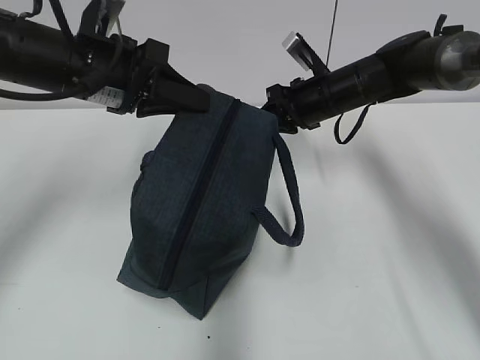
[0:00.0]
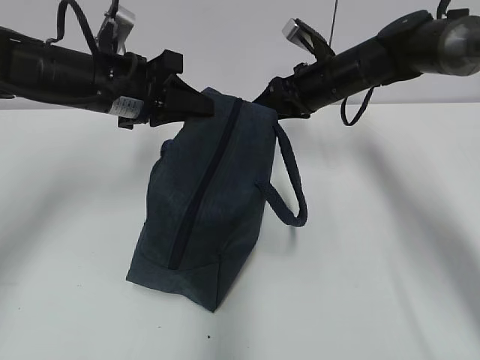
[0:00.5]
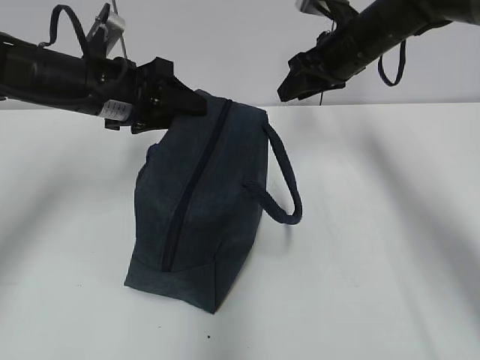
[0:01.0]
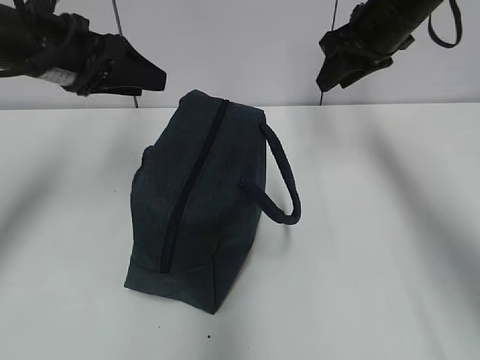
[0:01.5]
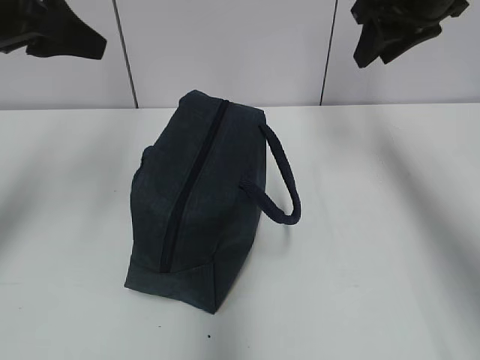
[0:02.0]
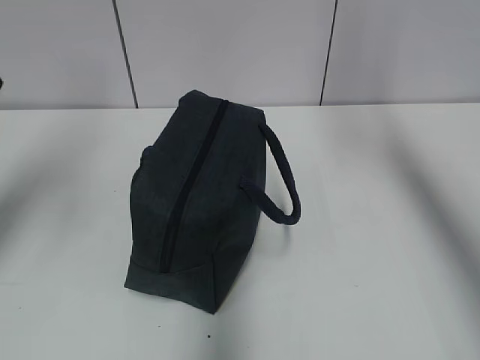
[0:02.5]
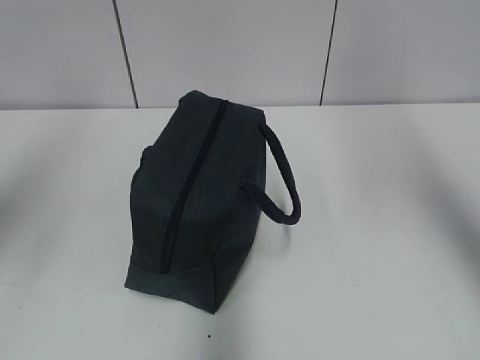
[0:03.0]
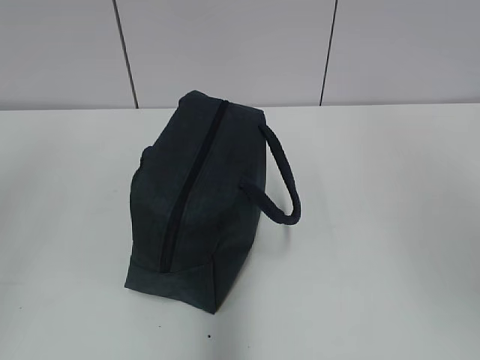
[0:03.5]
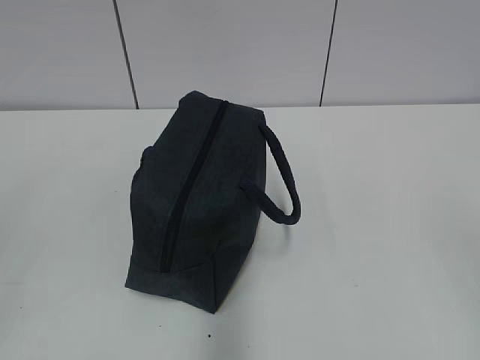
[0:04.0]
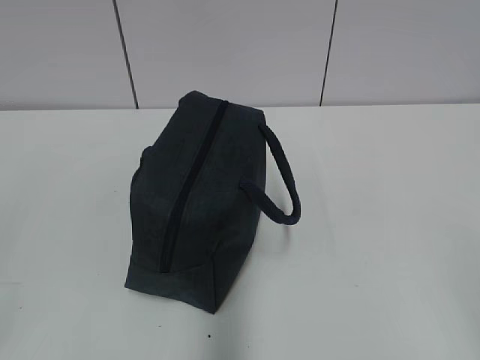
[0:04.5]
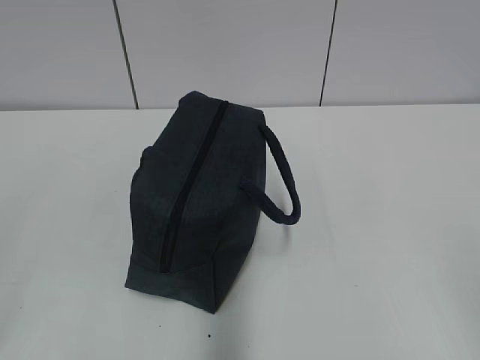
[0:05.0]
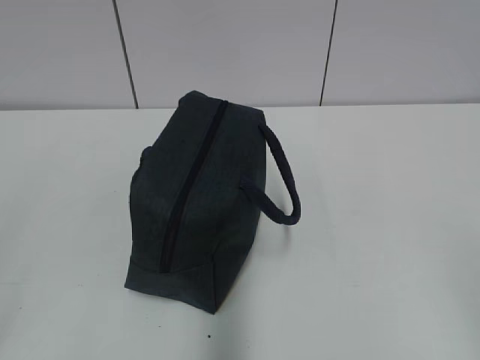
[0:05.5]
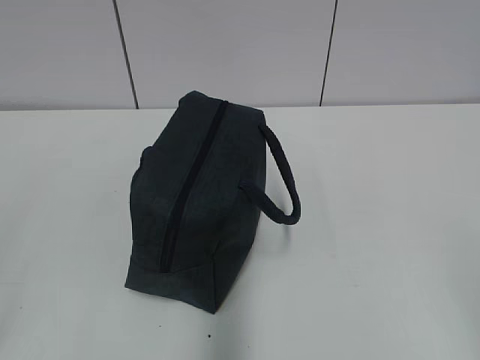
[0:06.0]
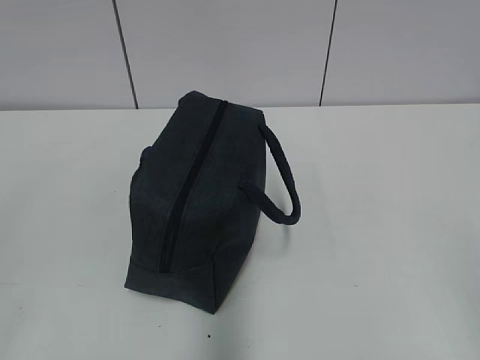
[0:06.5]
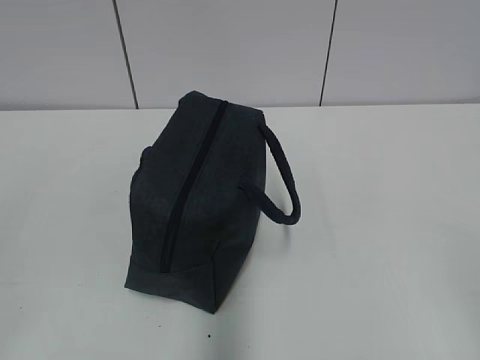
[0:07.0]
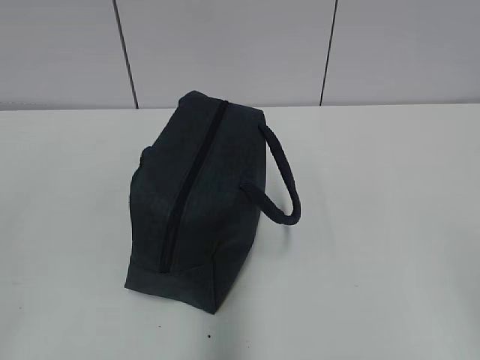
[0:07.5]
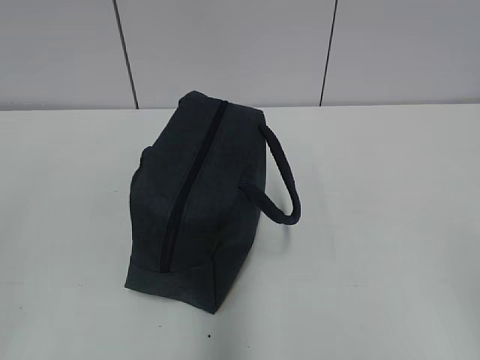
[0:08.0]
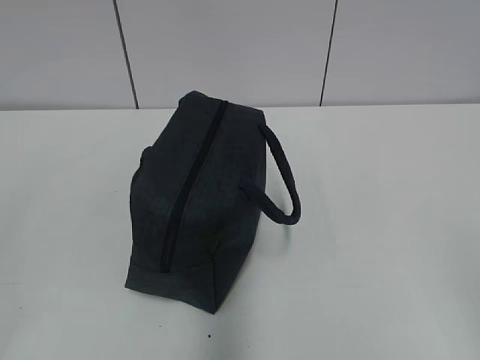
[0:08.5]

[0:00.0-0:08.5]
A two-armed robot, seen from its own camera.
Step, 0:00.0 to 0:00.5: Grab the lunch bag with your left hand.
0:00.0 to 0:02.0: The left gripper travels upward and to the left by roughly 10 cm, and opens. Meanwhile the right gripper moves upward, about 15 cm, and opens its fingers.
0:02.0 to 0:04.0: The grippers both shift backward by about 40 cm.
0:06.5 to 0:08.5: Both grippers stay put.

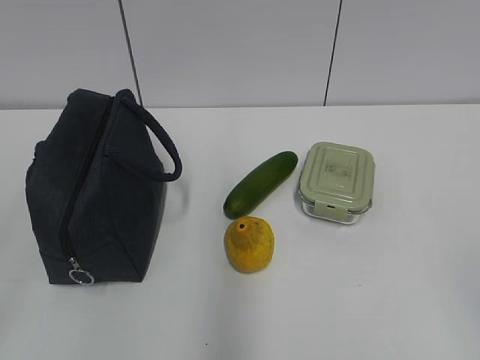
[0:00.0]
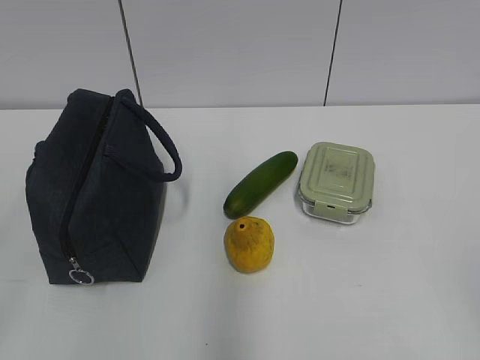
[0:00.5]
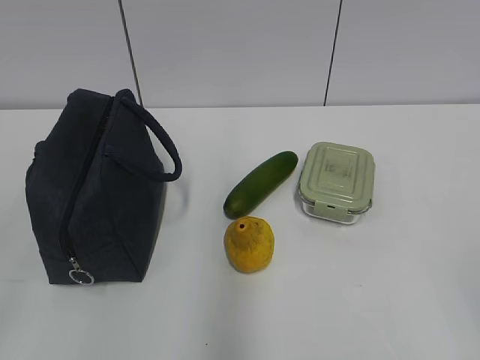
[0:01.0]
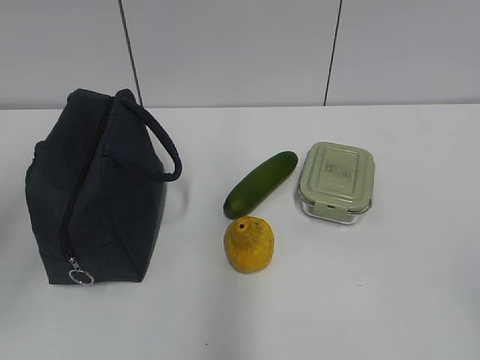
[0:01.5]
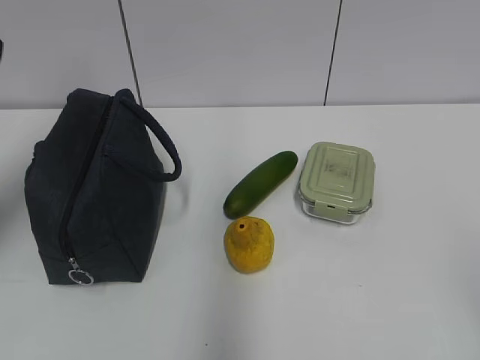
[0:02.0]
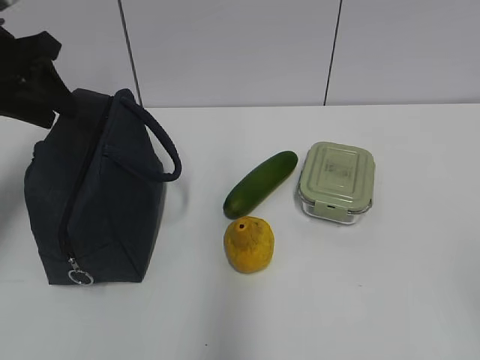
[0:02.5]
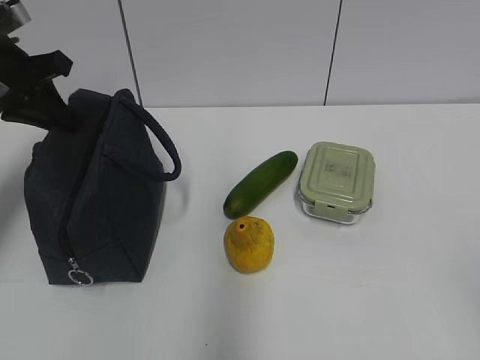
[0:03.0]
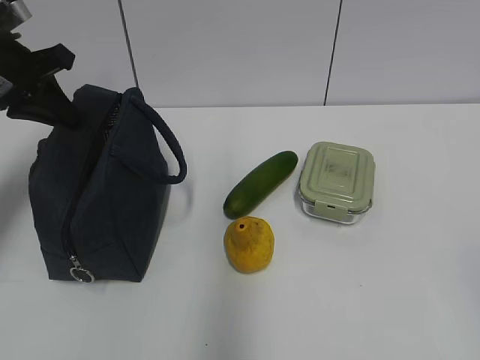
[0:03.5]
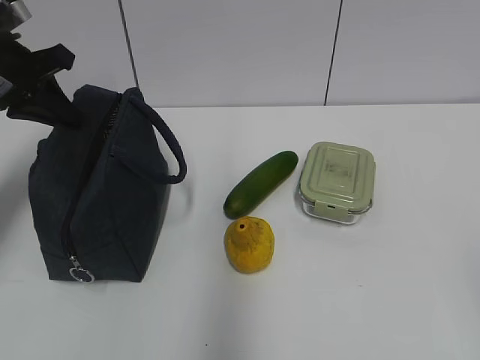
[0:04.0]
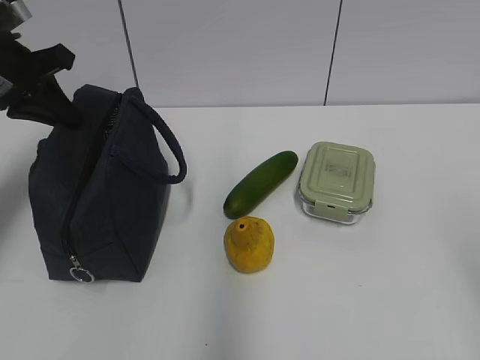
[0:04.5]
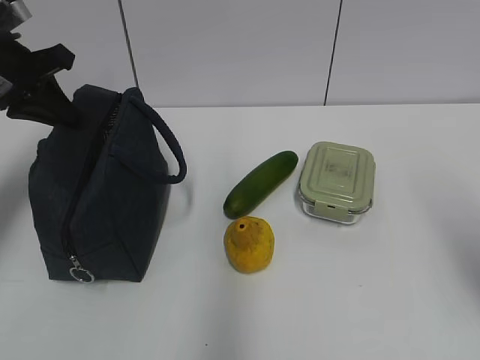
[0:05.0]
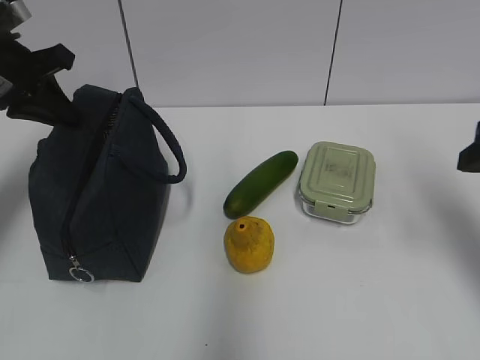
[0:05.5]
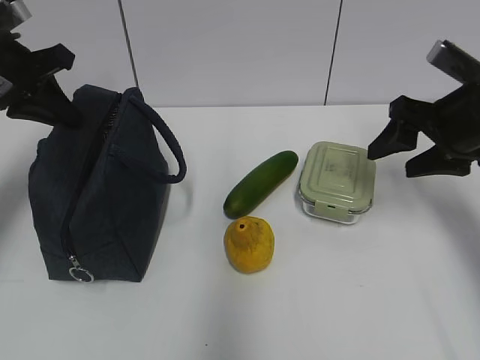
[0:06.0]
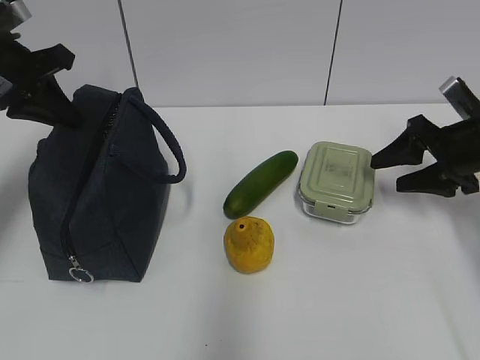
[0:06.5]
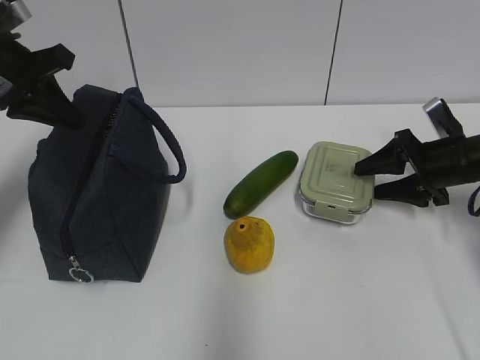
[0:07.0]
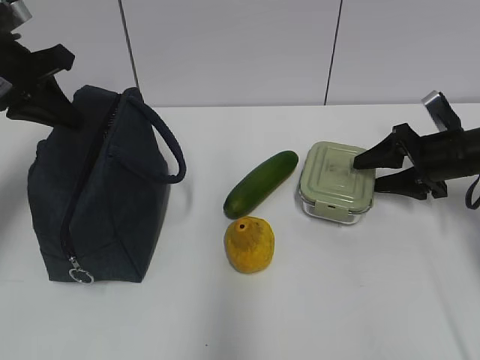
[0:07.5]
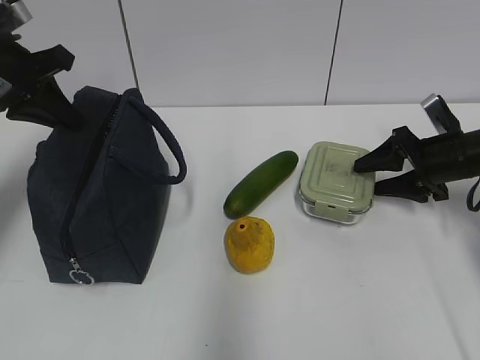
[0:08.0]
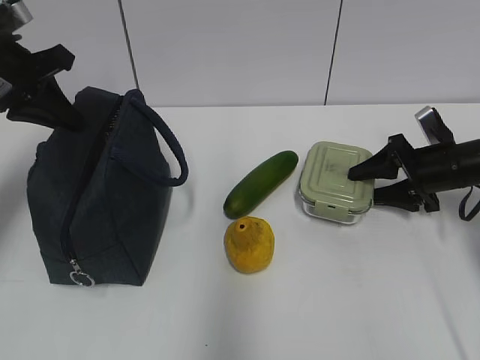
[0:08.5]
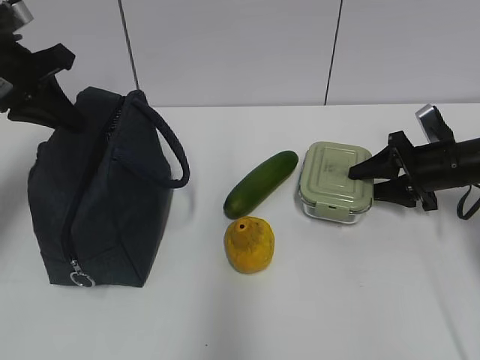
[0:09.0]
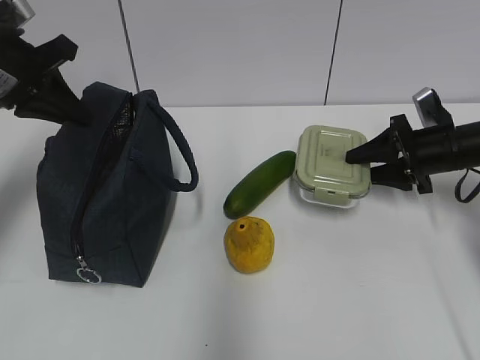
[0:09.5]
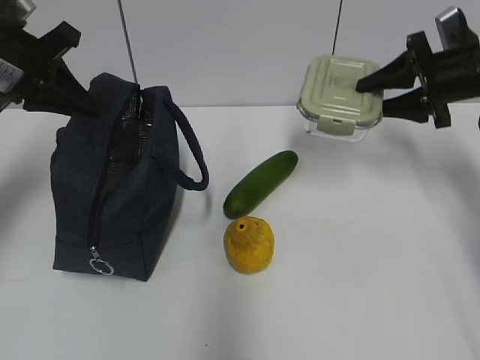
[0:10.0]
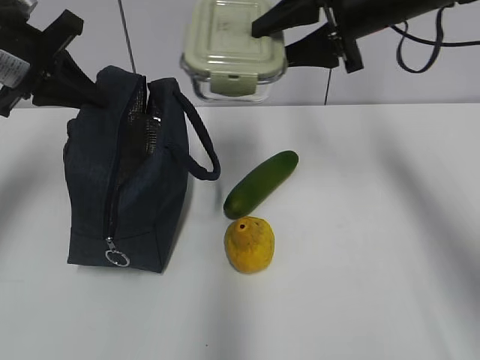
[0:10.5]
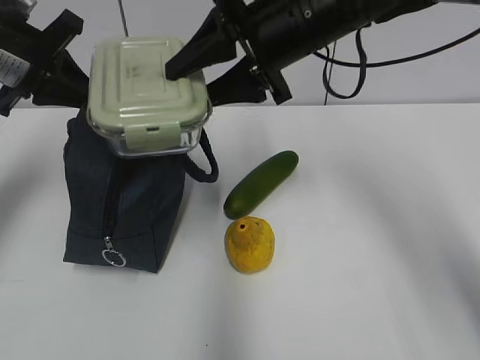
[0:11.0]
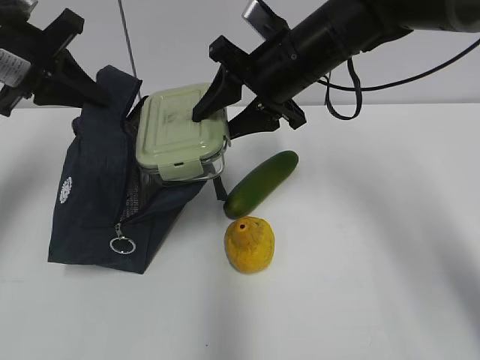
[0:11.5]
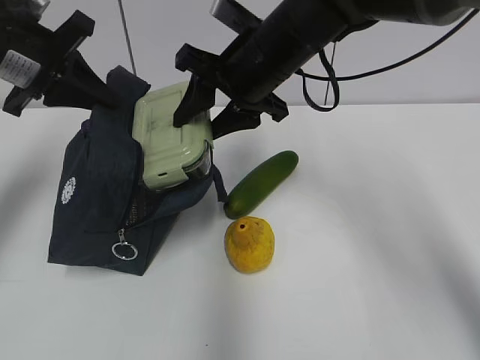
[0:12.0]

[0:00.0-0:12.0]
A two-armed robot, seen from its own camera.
0:02.0 to 0:04.0: The left gripper is displaced forward and downward by roughly 15 cm, and closes its fingers.
0:04.0 to 0:06.0: The right gripper moves forward, some 35 cm.
0:06.0 to 0:08.0: The right gripper is displaced downward and forward by roughly 10 cm.
0:08.0 to 0:10.0: The right gripper moves upward, some 10 cm.
0:10.0 to 0:12.0: The right gripper goes about 25 cm to the left.

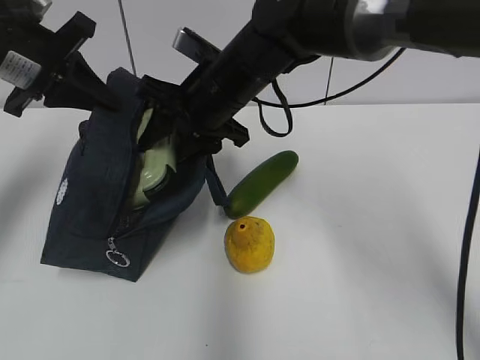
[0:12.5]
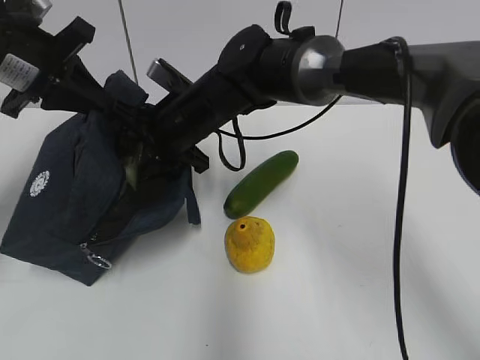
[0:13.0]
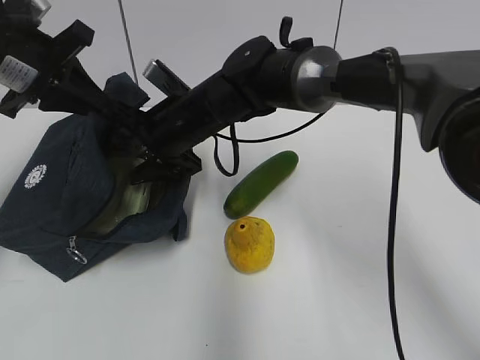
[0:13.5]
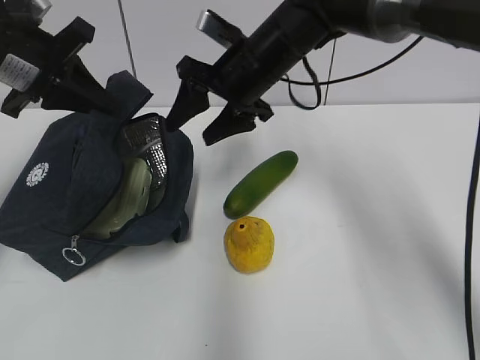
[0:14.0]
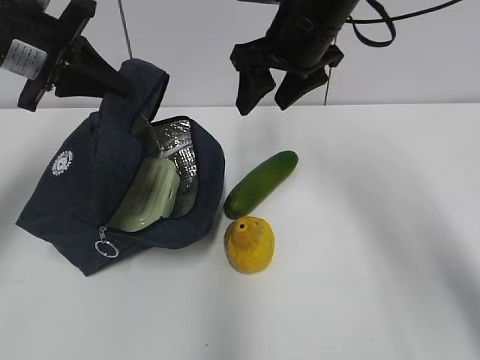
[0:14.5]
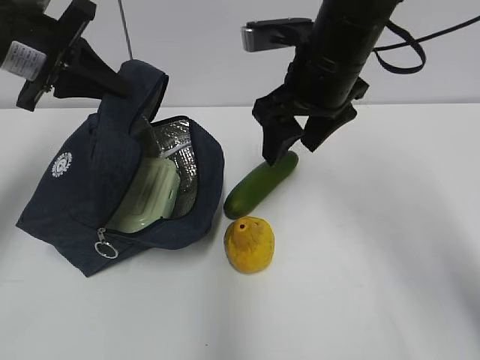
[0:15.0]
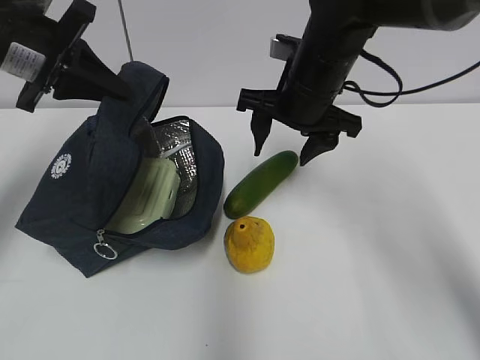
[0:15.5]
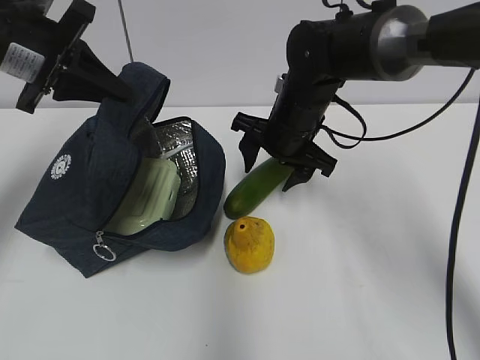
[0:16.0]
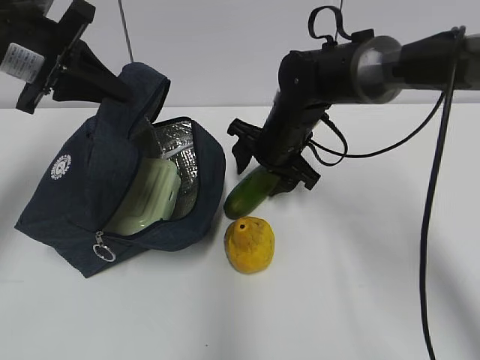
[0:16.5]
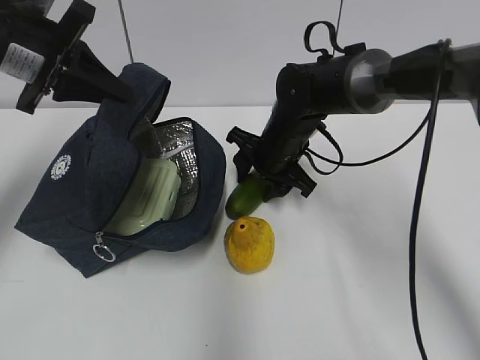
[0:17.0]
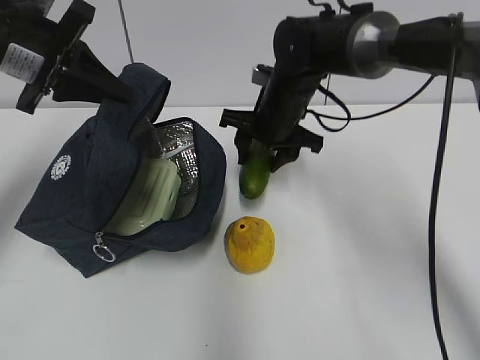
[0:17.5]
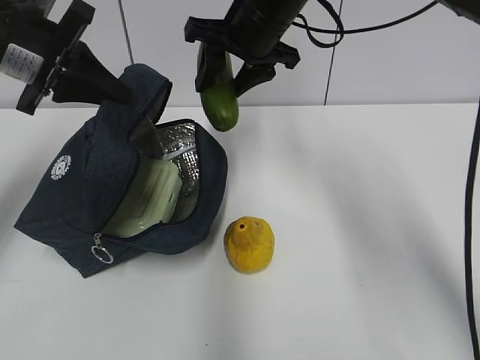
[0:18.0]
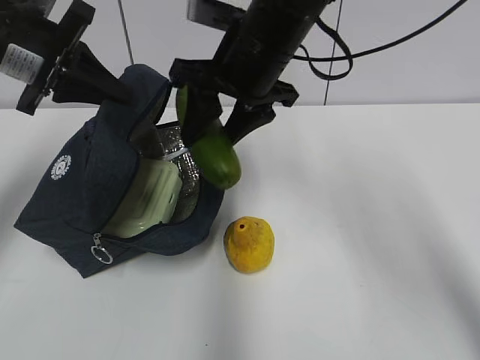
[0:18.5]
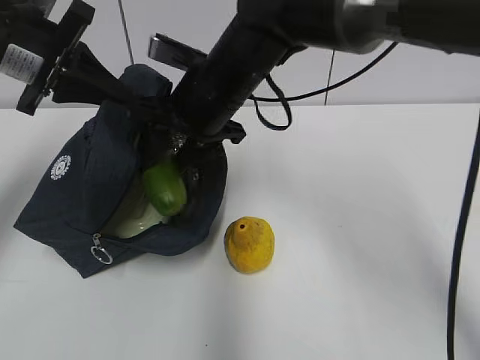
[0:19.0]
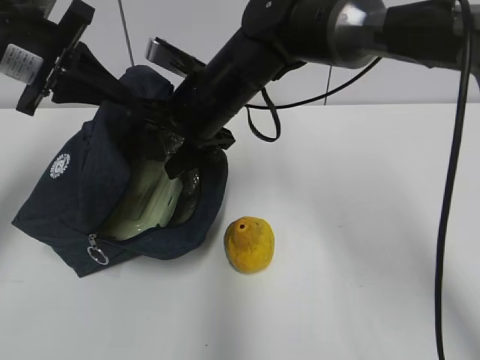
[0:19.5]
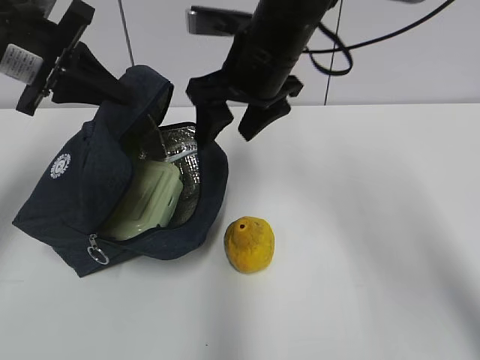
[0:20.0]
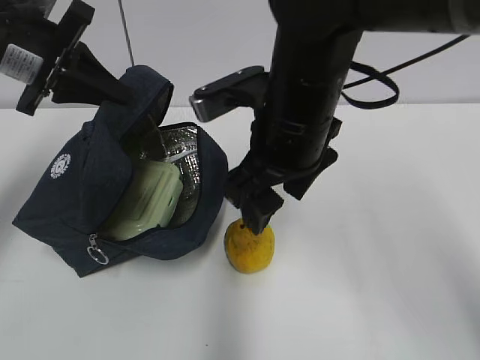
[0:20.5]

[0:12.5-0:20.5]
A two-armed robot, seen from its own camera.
0:12.5 to 0:14.5: The right gripper goes some 10 cm to the right and upward.
0:14.5 to 0:16.5: The right gripper moves downward, roughly 15 cm.
0:16.5 to 0:18.5: The right gripper heads upward and backward, covering about 15 cm.
0:18.5 to 0:20.5: The right gripper travels backward by about 5 cm.
